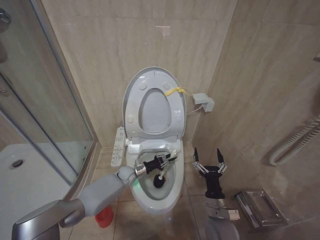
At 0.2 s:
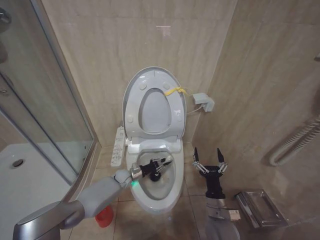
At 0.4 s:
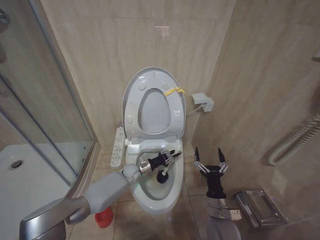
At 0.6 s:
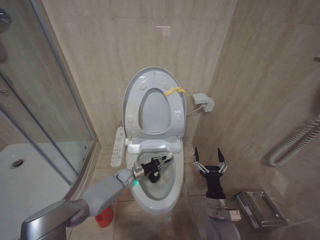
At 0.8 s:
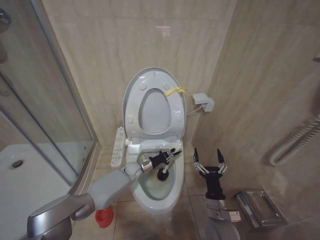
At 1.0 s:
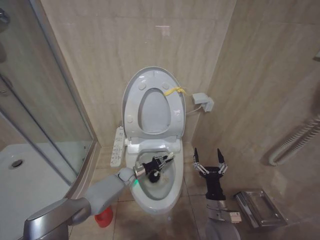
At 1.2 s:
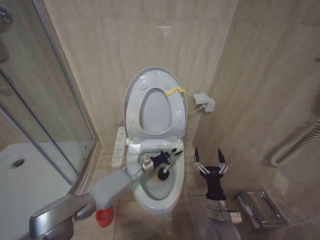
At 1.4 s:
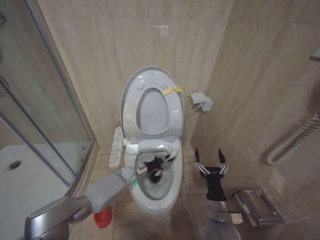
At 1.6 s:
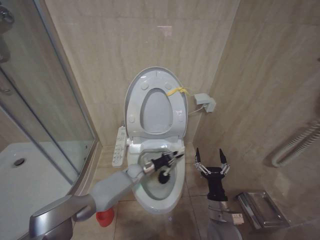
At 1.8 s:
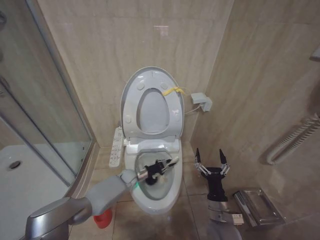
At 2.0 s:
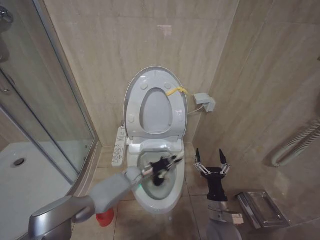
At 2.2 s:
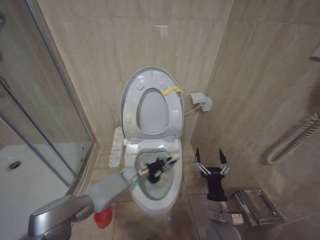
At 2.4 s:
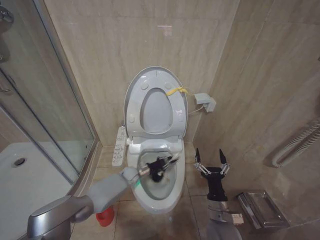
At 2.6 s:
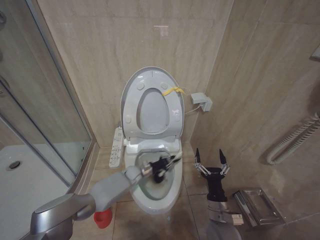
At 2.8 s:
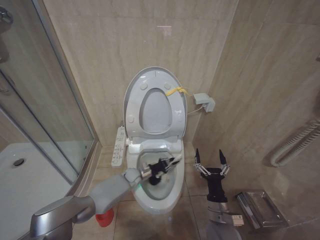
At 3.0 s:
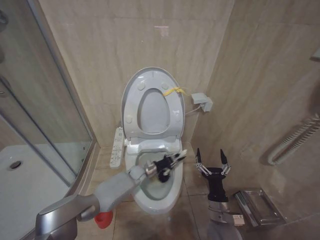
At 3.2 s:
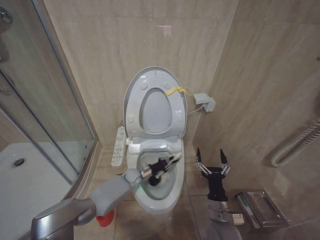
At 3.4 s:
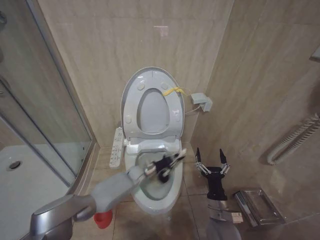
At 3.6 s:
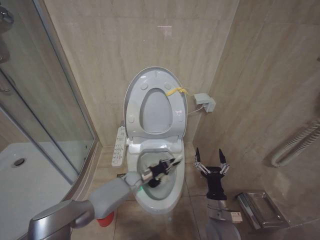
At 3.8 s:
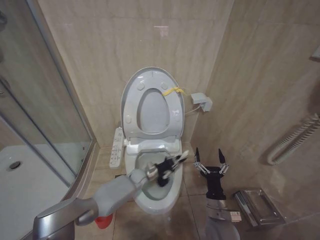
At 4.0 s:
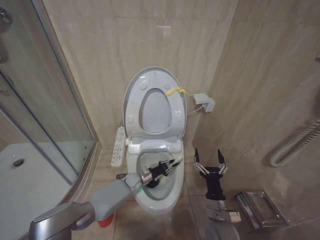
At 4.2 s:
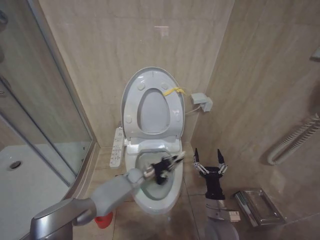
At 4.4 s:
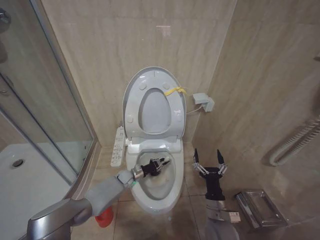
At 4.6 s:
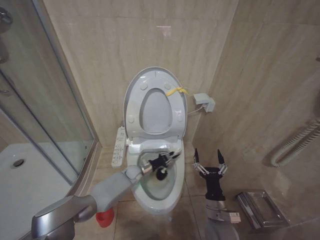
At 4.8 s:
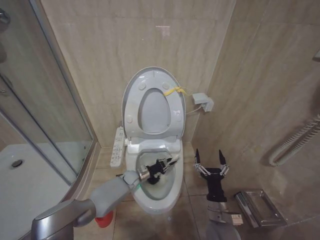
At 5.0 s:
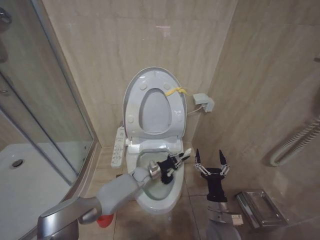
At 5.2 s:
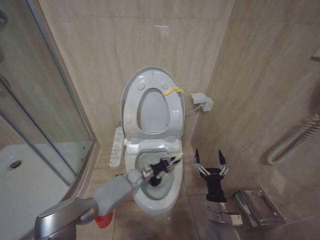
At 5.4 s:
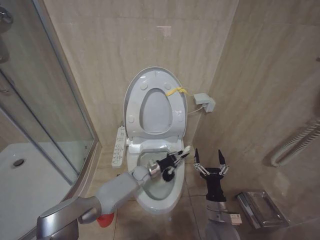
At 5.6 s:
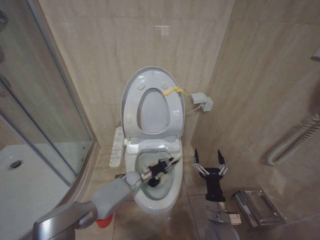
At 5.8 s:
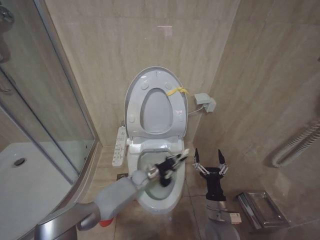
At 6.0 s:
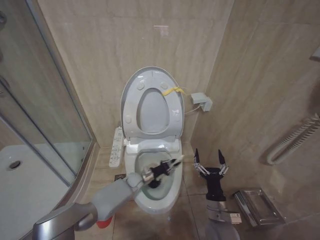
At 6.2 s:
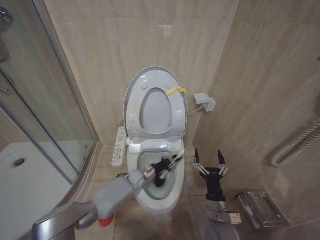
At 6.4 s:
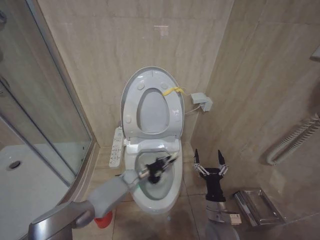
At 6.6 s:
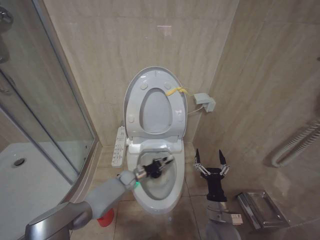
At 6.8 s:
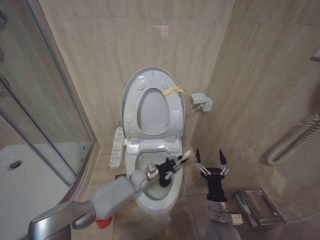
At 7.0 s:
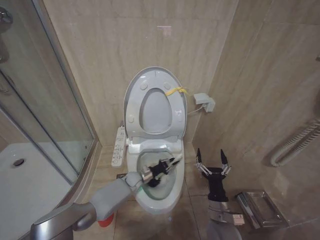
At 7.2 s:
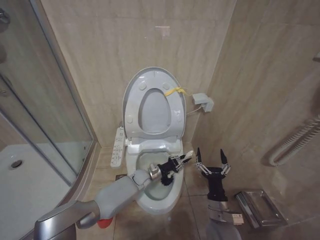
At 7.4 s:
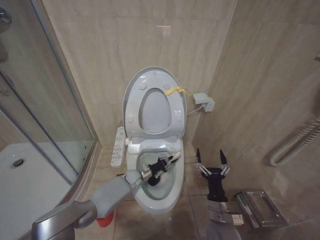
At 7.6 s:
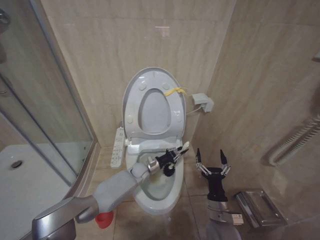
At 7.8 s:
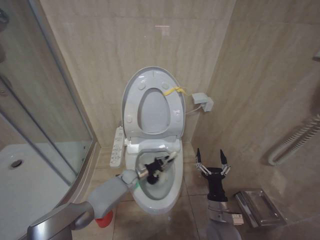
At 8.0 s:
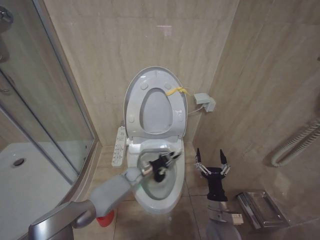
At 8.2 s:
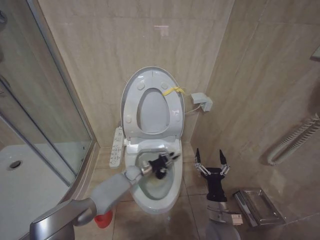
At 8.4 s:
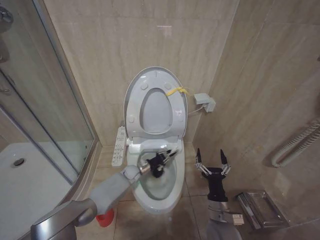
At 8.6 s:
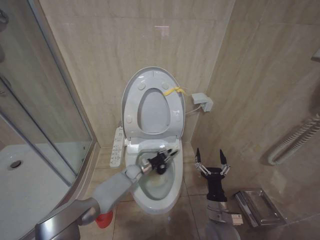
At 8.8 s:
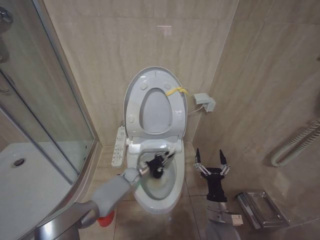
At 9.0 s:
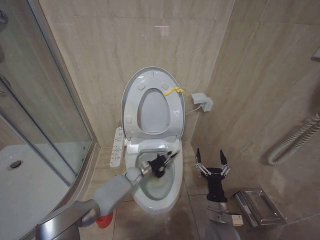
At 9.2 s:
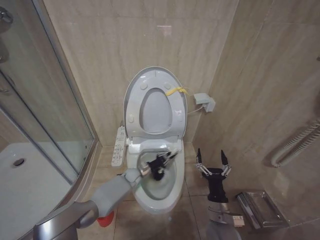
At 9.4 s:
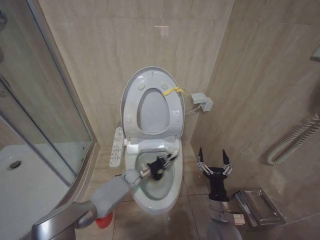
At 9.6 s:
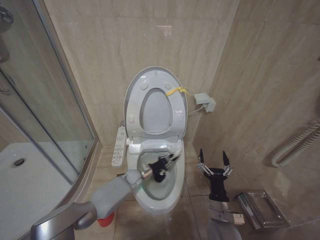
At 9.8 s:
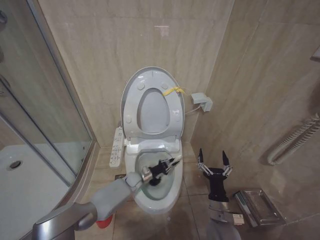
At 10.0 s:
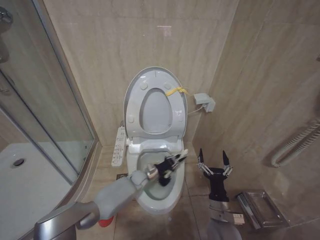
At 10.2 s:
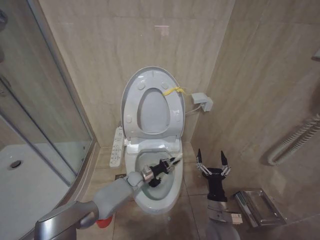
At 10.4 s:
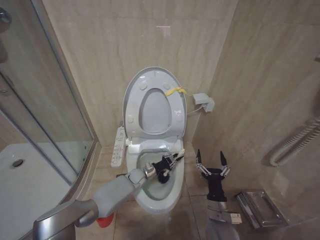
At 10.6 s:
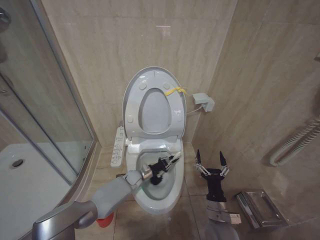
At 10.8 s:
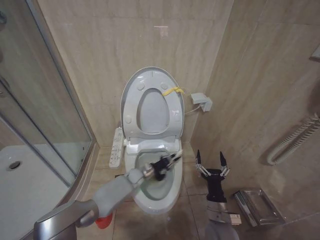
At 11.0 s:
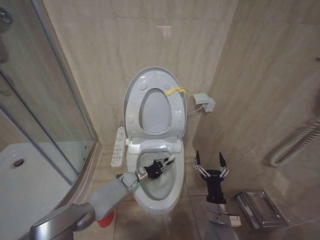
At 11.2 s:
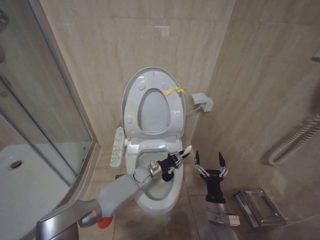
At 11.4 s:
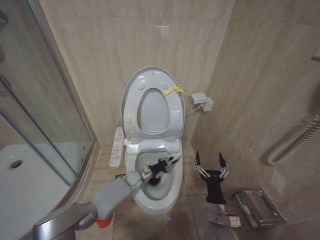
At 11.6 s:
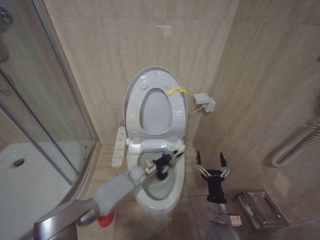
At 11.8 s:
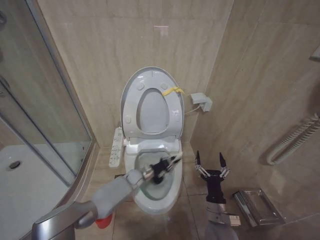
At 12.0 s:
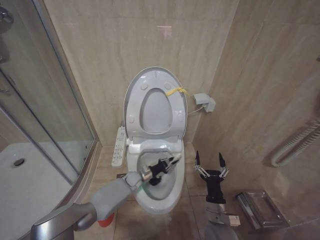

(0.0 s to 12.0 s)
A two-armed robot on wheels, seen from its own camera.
Task of the whole recording: Open the toilet lid, clean the toilet bowl with a toilet brush, close the toilet lid, and flush.
0.0 s - 1.6 s: The grippers stay close to where they were, moving slightly.
1.6 s - 3.0 s: The left gripper moves left and right over roughly 5 cm, changing direction 4 times.
3.0 s - 4.4 s: The left gripper moves left and right over some 10 cm, changing direction 4 times.
4.4 s - 6.0 s: The left gripper heads to the right, covering about 10 cm.
6.0 s - 7.6 s: The left gripper goes left and right, approximately 10 cm each way, reversing 2 times.
9.0 s - 12.0 s: There are only small adjustments of the grippers.

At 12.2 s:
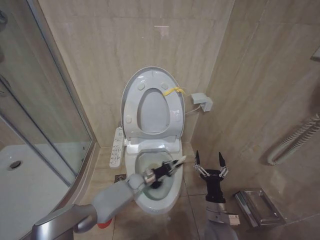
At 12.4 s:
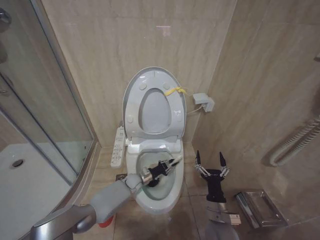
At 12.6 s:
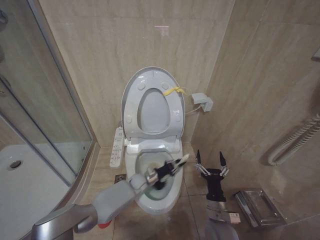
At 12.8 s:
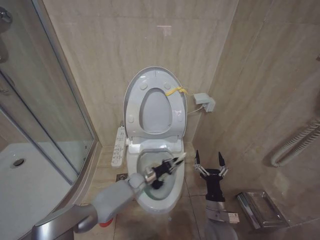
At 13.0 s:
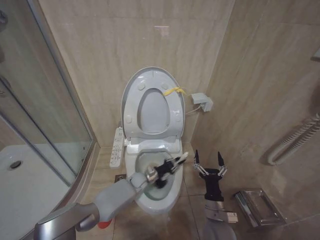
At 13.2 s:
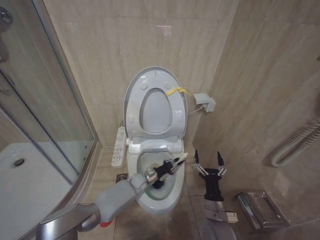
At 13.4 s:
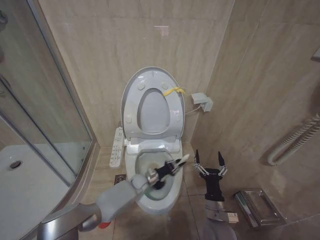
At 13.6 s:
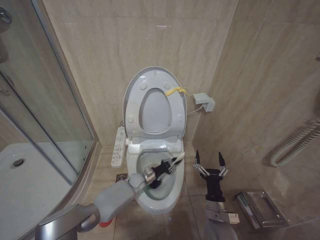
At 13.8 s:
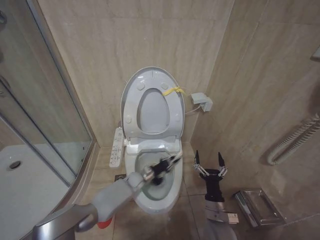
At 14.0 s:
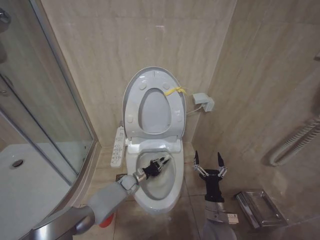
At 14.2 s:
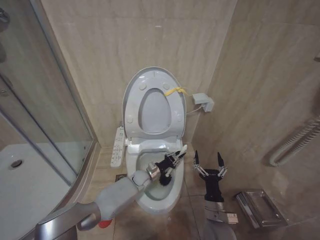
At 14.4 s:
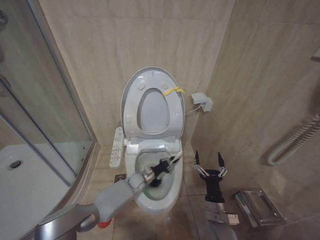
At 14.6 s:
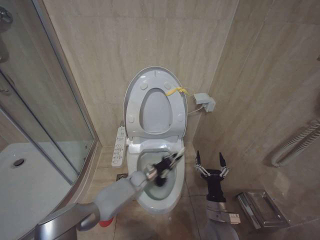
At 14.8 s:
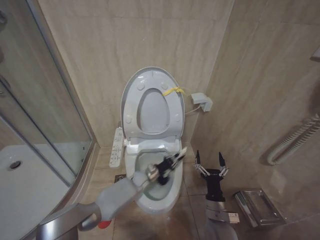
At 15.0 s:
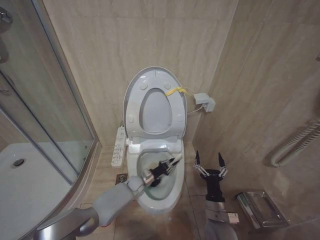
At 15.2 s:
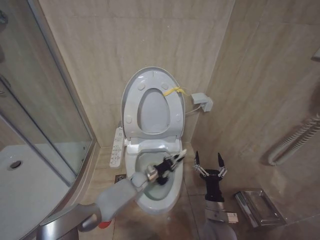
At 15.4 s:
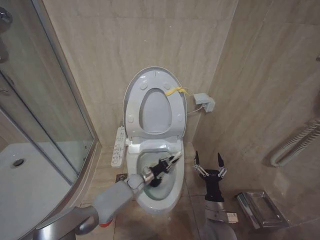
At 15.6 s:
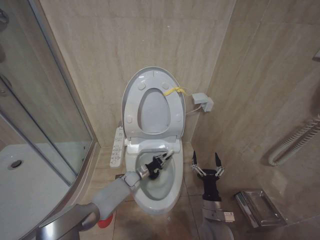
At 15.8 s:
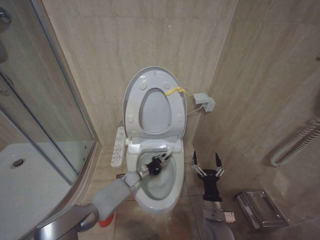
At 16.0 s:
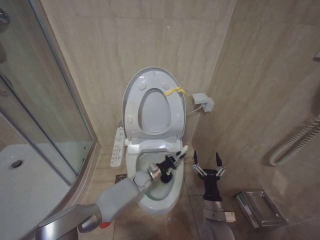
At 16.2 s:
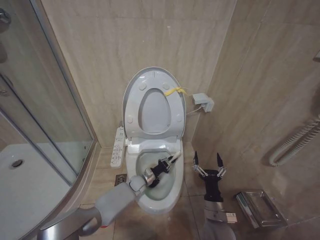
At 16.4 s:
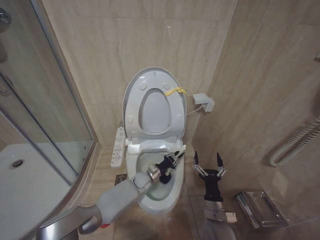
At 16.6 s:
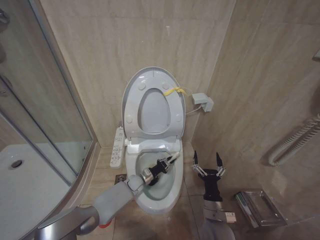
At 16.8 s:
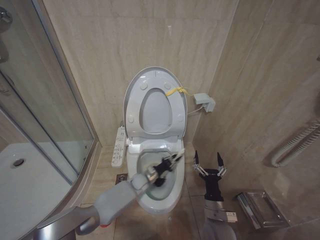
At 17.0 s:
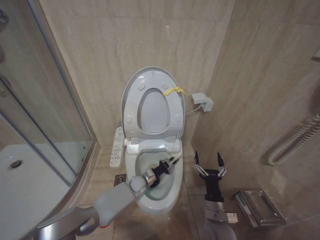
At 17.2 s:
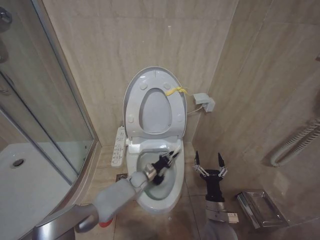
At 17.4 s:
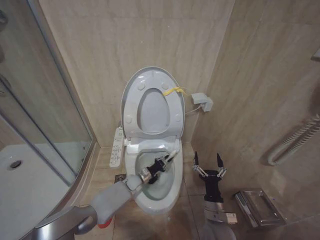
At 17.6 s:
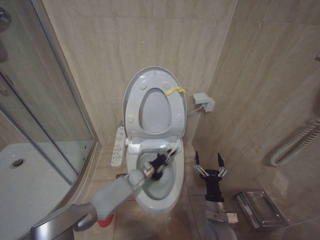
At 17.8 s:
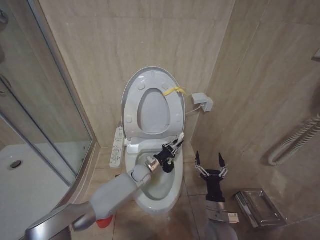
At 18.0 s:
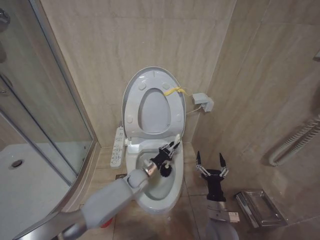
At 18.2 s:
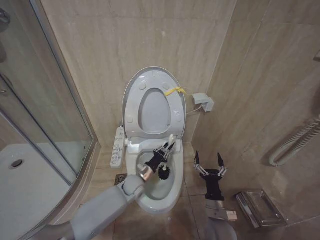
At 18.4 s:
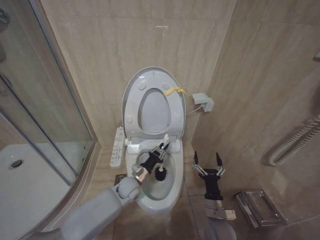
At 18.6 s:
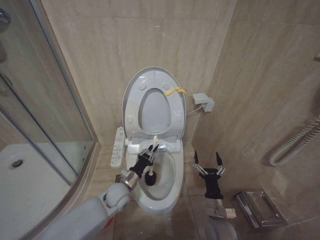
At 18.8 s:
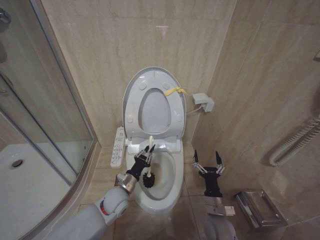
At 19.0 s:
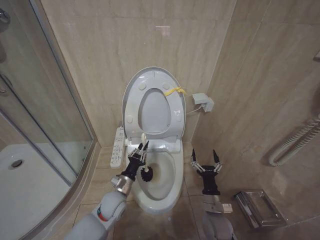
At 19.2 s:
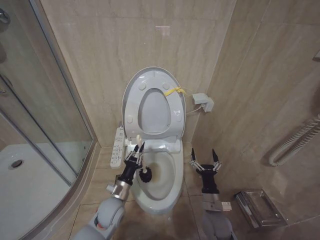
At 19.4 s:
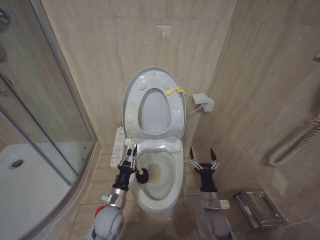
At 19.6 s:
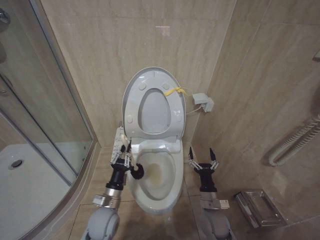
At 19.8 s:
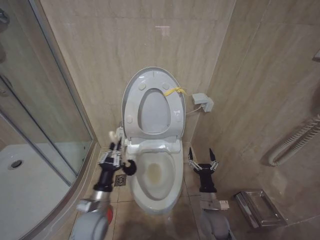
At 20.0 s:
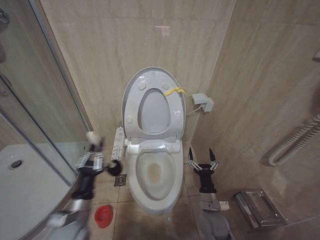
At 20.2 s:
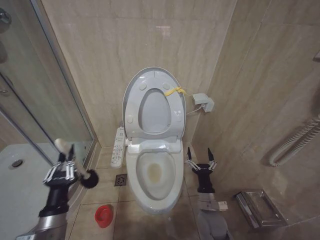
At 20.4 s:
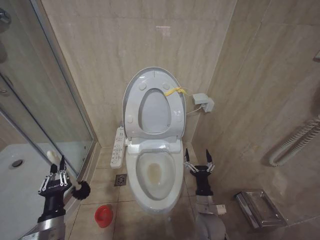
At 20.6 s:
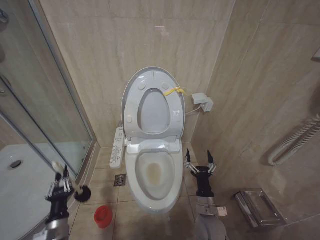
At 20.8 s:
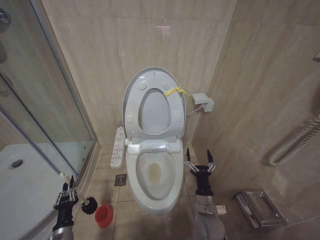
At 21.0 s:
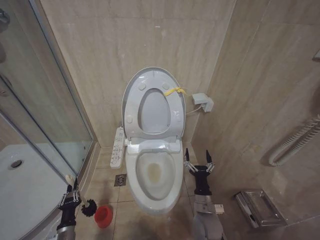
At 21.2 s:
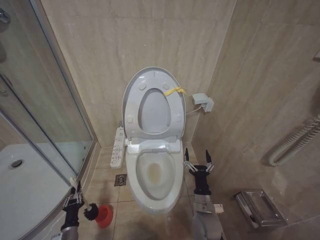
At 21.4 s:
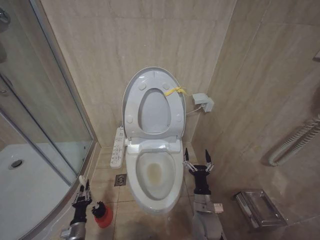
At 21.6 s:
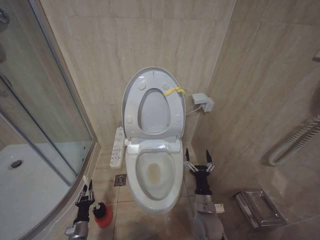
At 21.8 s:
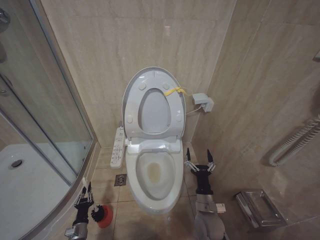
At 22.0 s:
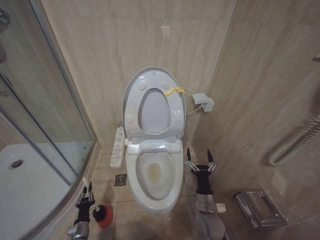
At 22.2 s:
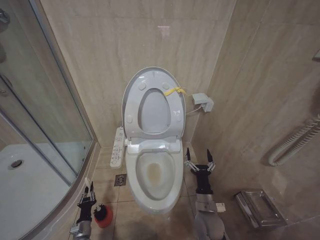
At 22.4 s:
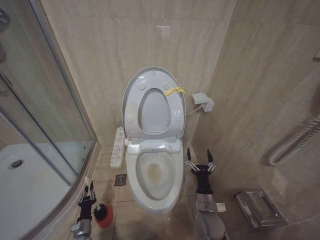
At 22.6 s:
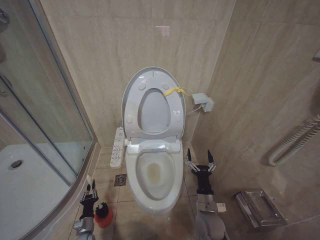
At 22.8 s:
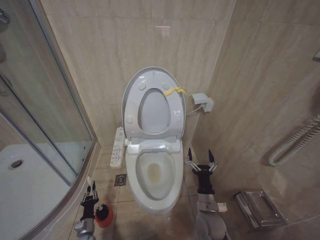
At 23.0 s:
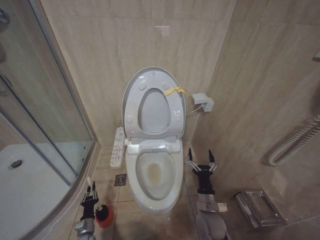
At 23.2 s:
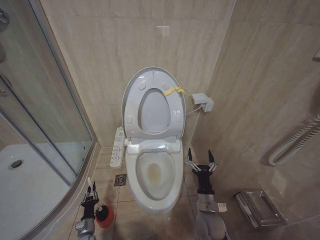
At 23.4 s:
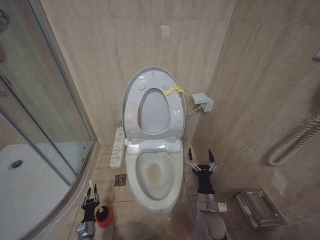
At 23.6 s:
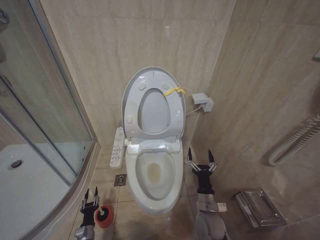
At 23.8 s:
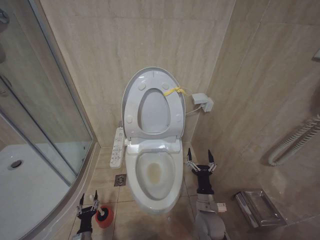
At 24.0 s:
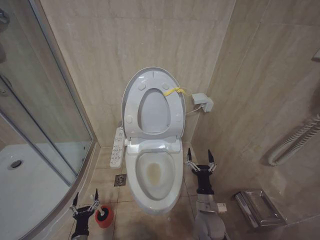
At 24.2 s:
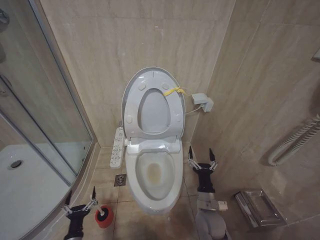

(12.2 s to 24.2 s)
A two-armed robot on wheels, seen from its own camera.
Task of the whole recording: Open the toilet lid, clean the toilet bowl with a toilet brush, close the toilet lid, and flush.
12.2 s - 13.8 s: The grippers make only small movements.
13.8 s - 15.2 s: The left gripper moves left and right over some 10 cm, changing direction 3 times.
16.6 s - 18.2 s: The left gripper heads upward, covering approximately 10 cm.
18.2 s - 19.8 s: The left gripper shifts approximately 20 cm backward and to the left.
19.8 s - 21.2 s: The left gripper goes some 25 cm downward and to the left.
21.2 s - 22.6 s: The left gripper moves downward and forward, some 10 cm.
22.6 s - 24.2 s: The left gripper moves backward and upward, about 10 cm, and opens.
